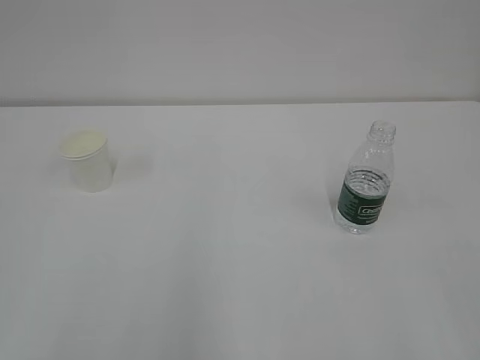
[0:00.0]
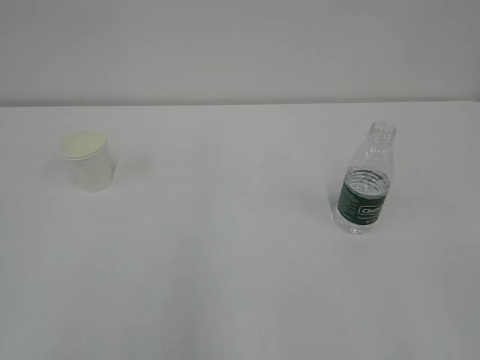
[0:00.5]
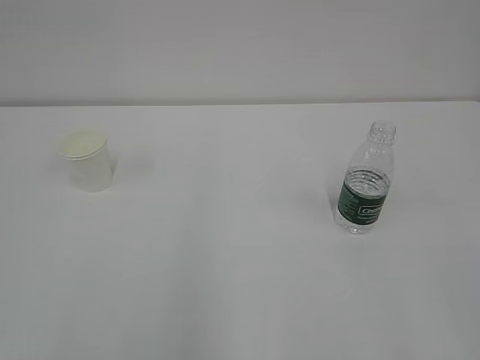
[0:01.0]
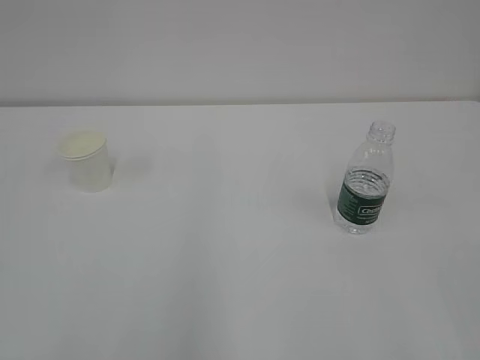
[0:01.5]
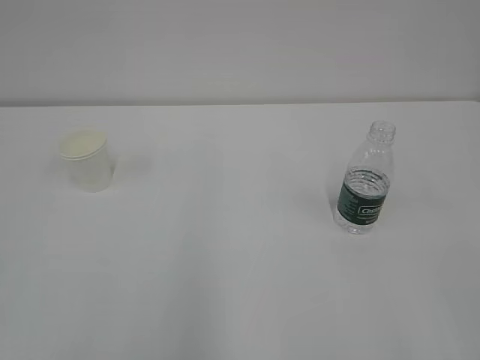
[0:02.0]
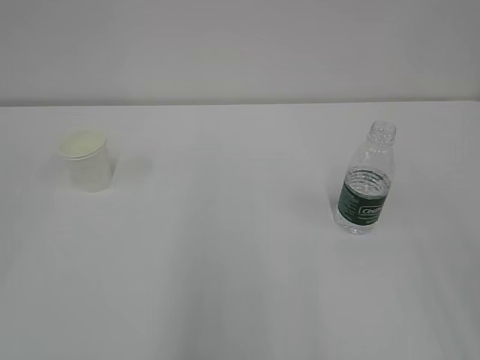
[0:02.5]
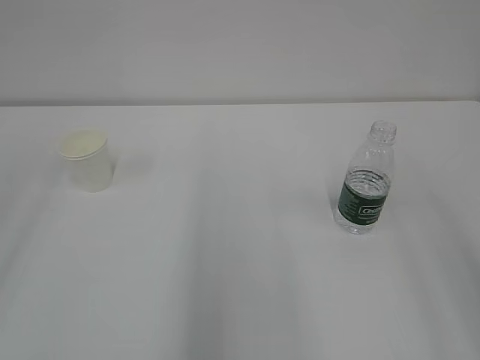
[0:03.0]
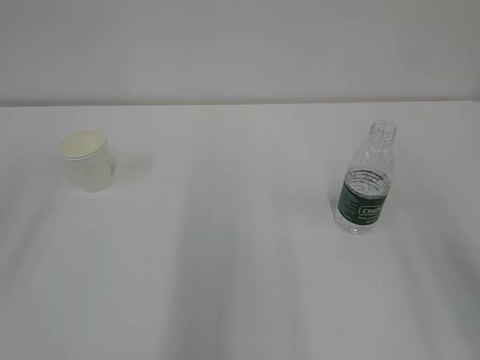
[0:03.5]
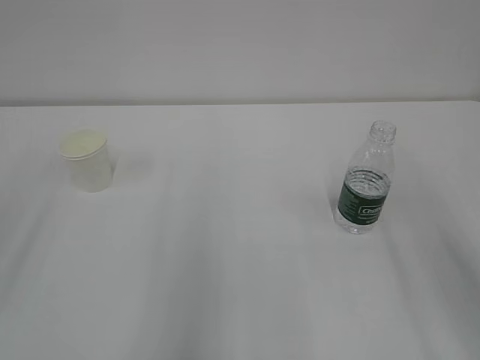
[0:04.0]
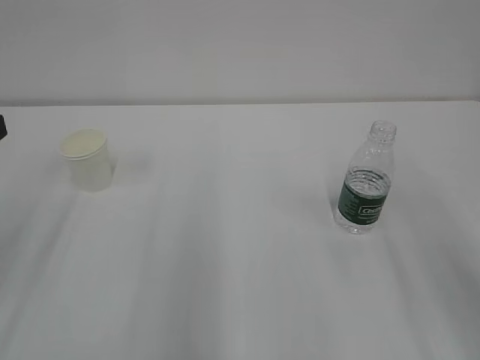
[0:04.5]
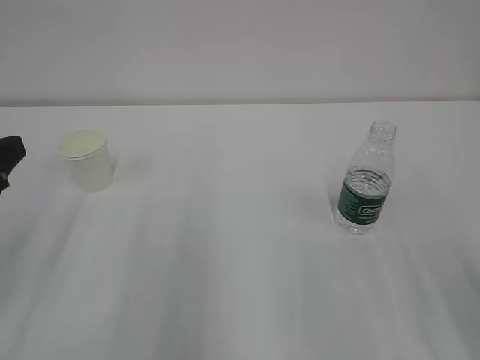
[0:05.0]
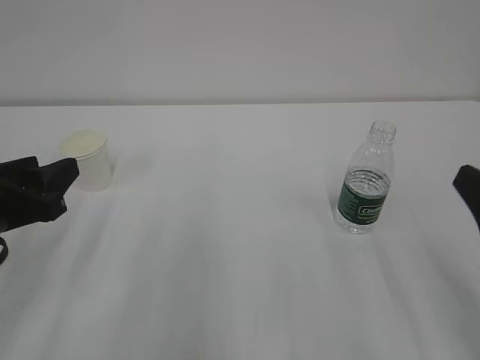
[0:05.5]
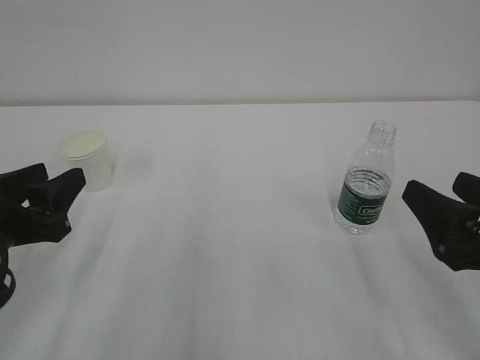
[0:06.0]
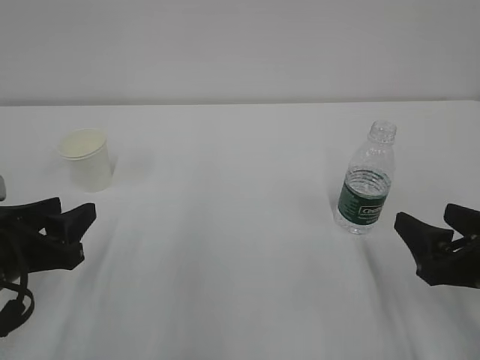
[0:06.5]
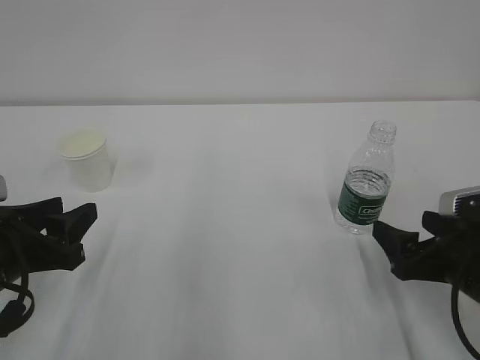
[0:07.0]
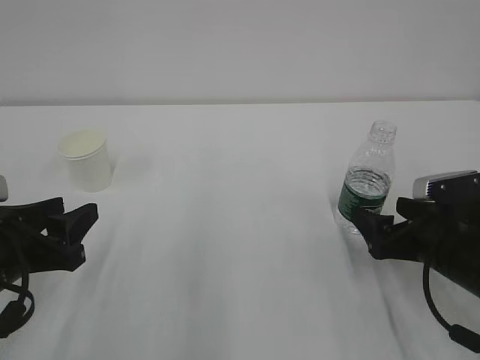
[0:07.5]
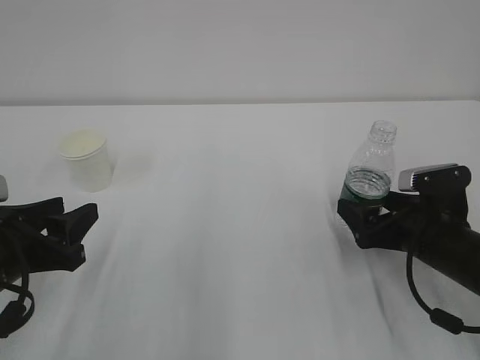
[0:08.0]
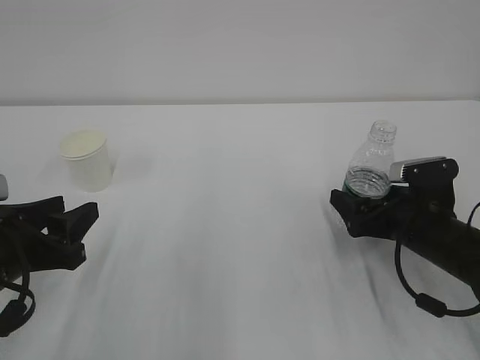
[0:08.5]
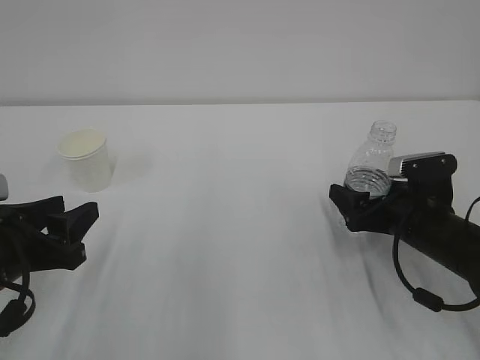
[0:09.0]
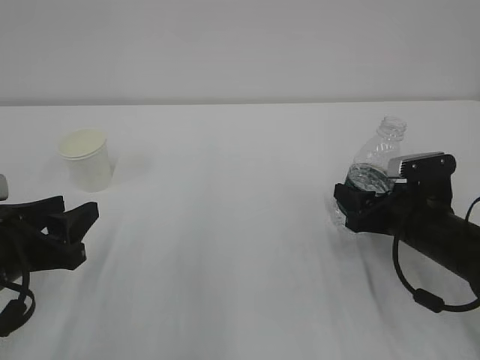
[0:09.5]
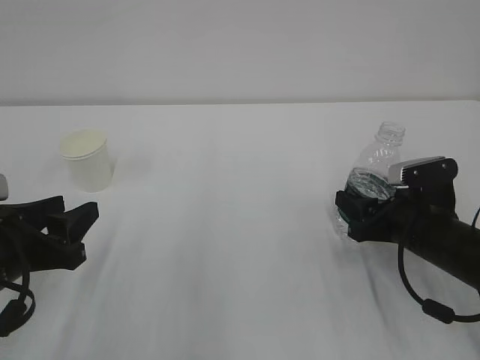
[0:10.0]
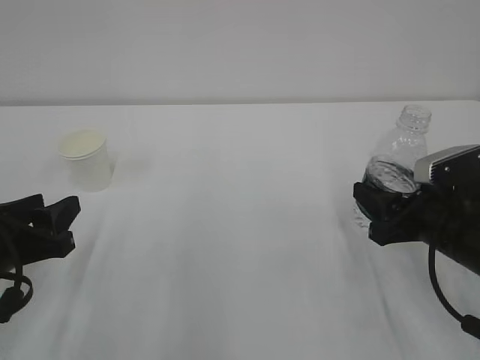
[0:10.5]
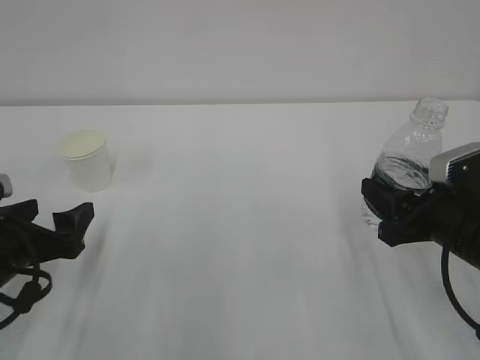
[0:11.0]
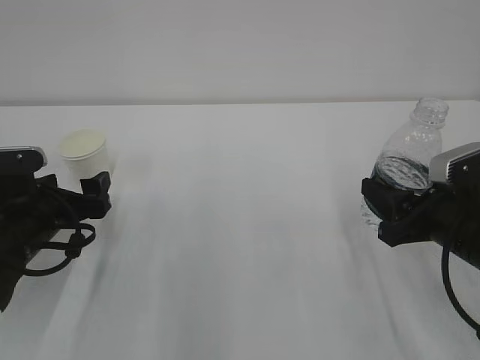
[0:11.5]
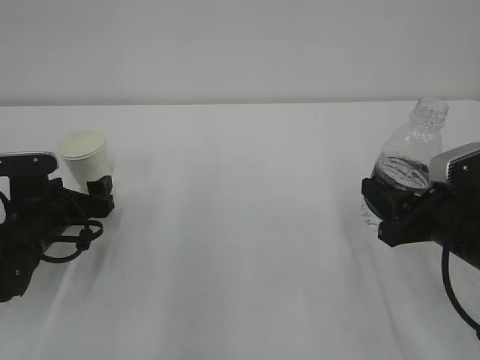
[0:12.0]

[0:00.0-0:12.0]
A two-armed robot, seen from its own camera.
4.0 to 6.0 s: The left gripper goes roughly 15 cm downward and to the right. Meanwhile the right gripper moves downward, about 15 cm.
6.0 to 8.0 s: The right gripper shifts some 15 cm forward and downward.
8.0 to 10.0 s: The right gripper closes its fingers.
10.0 to 12.0 s: The left gripper travels forward and downward by approximately 15 cm, and opens its fingers, while the right gripper heads upward and backward, covering about 10 cm.

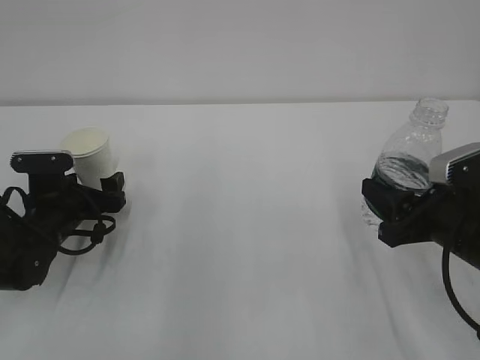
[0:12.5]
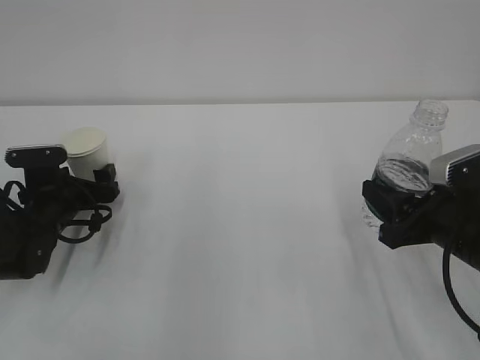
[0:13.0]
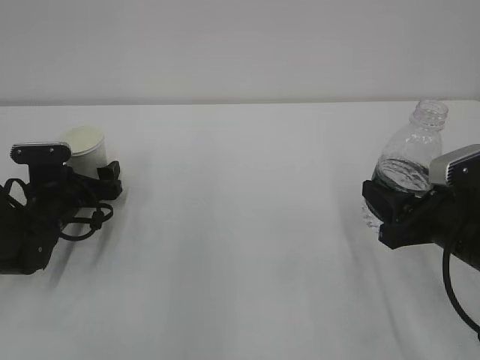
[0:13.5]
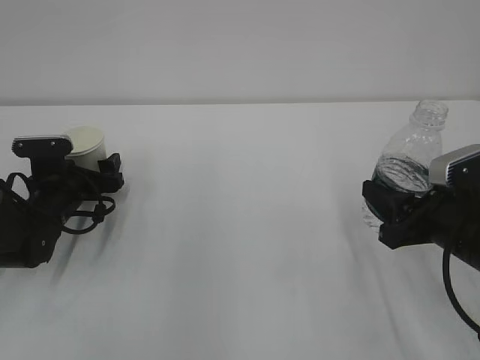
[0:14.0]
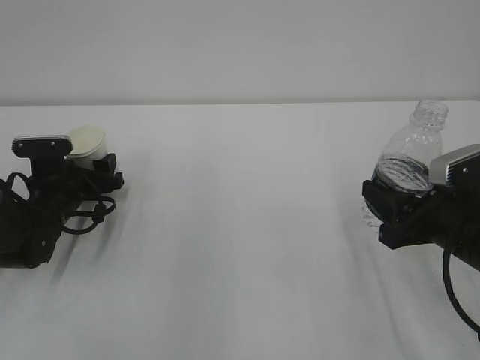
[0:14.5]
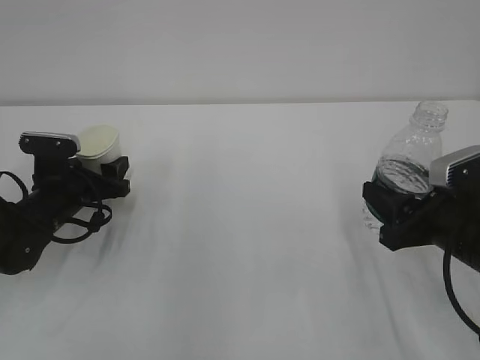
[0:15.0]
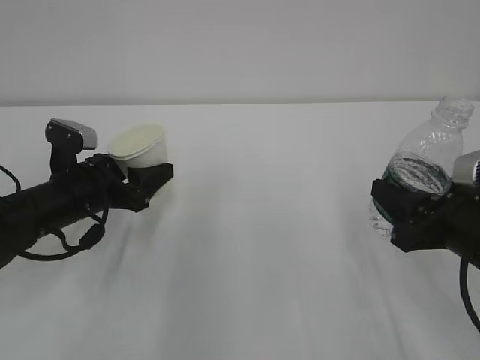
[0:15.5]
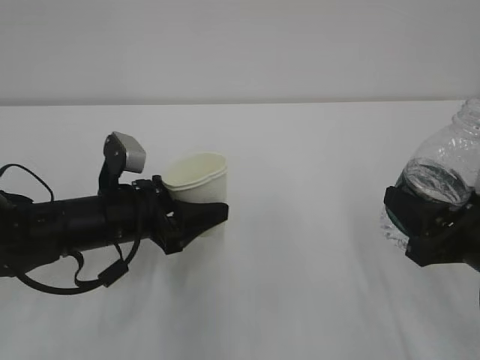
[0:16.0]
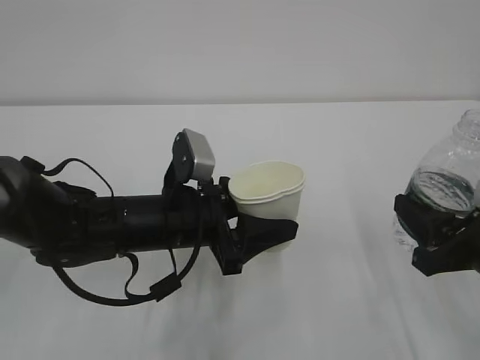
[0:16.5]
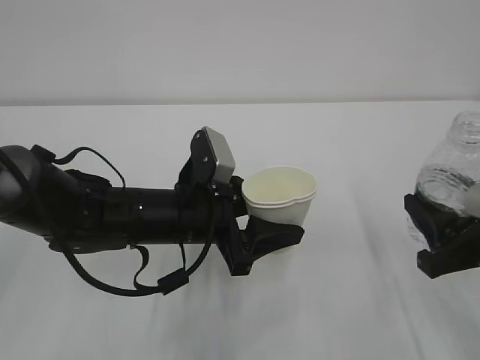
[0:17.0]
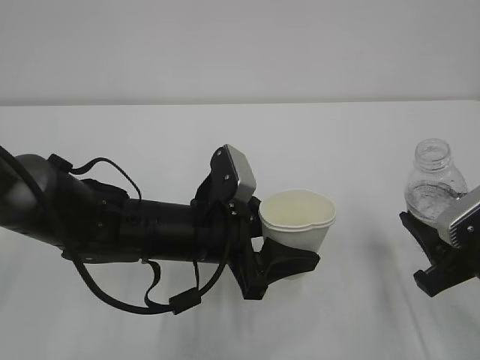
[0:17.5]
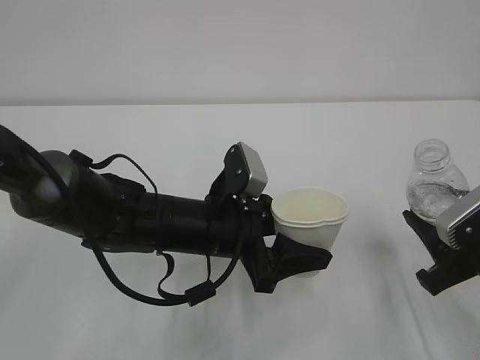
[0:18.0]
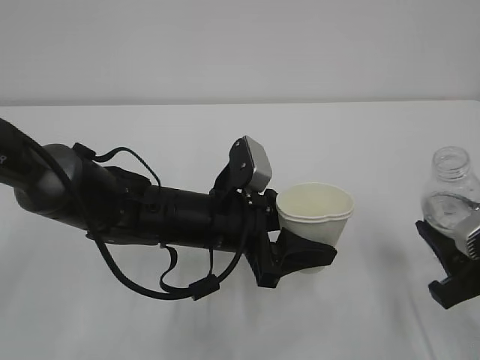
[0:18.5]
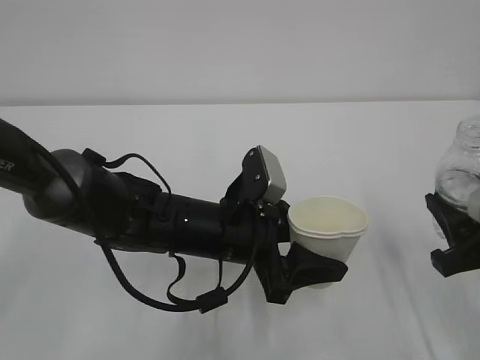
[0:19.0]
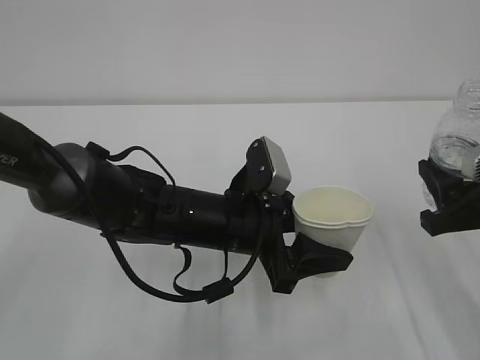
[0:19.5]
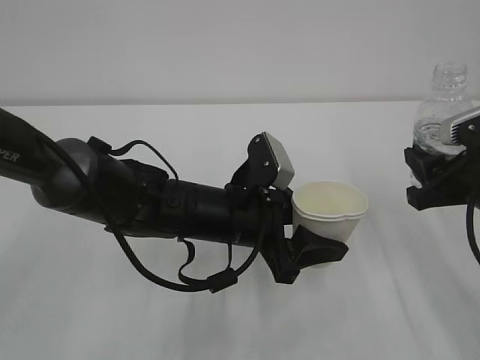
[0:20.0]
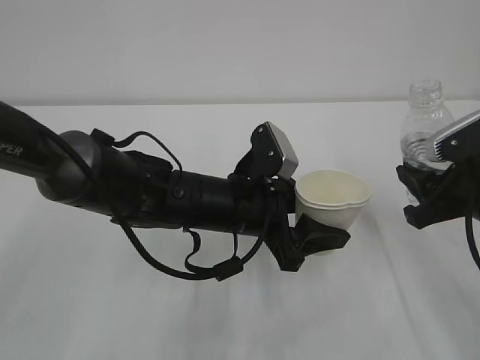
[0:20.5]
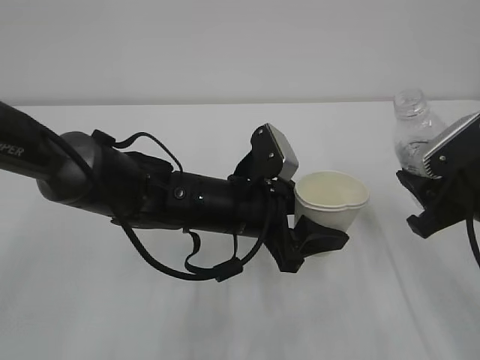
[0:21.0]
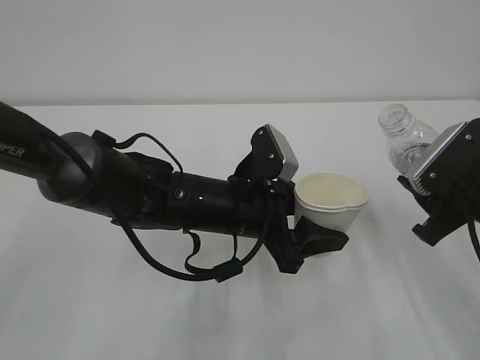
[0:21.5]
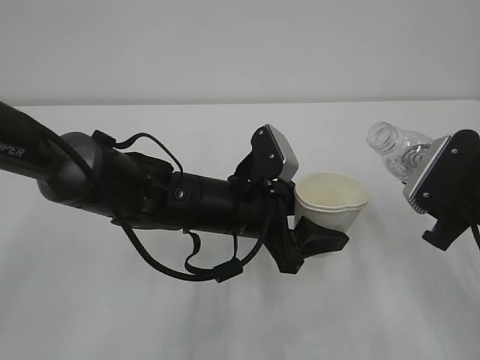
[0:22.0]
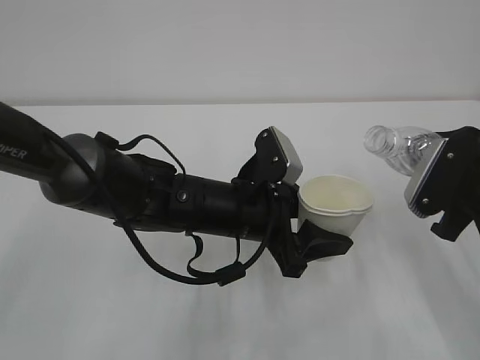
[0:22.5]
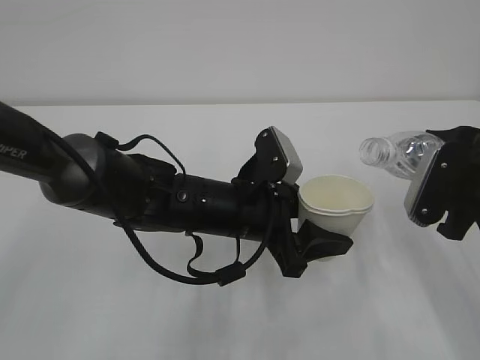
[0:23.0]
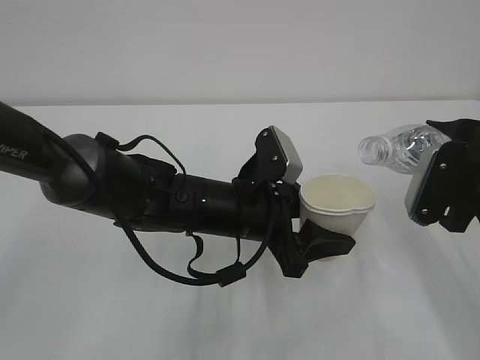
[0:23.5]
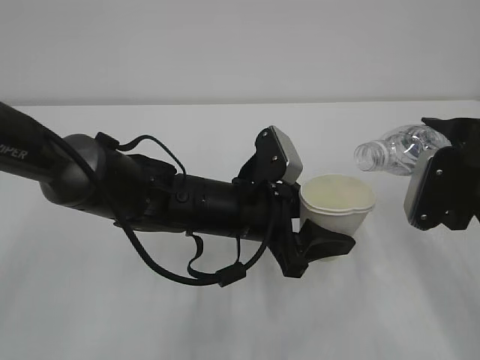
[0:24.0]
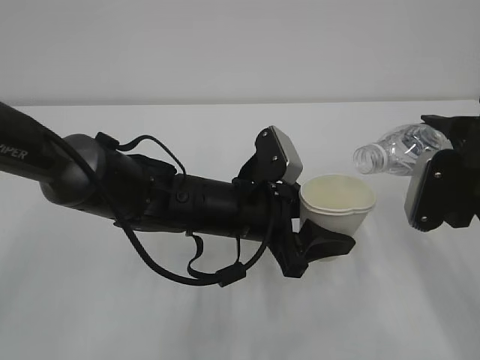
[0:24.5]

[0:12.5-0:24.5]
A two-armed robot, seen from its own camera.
12.5 to 14.5 s: The left gripper closes.
14.5 to 16.5 s: The left gripper goes about 20 cm to the right, backward and upward. Meanwhile the right gripper moves approximately 5 cm.
18.5 to 20.5 s: The right gripper shifts roughly 5 cm forward.

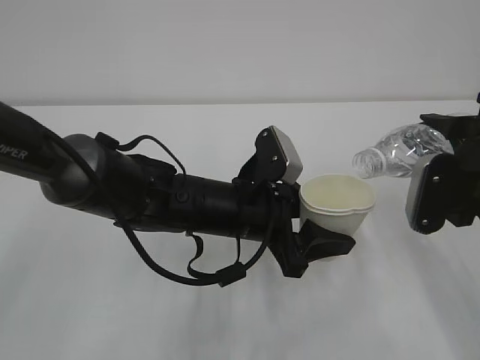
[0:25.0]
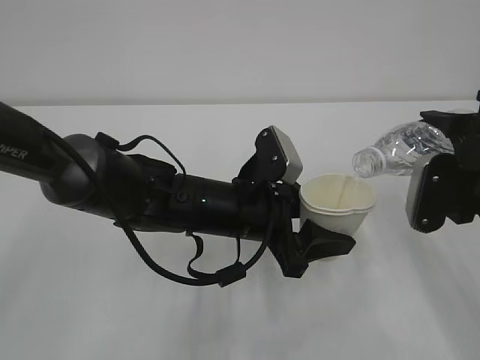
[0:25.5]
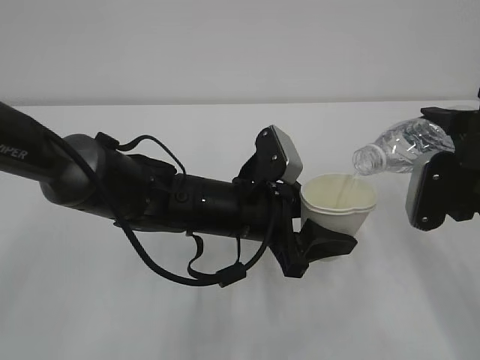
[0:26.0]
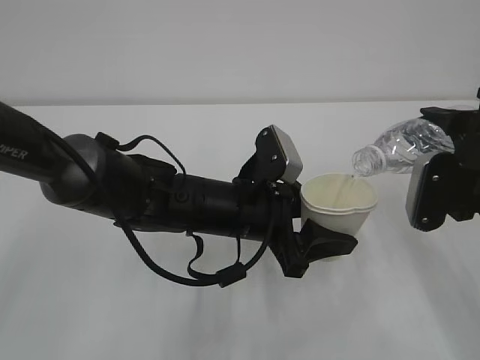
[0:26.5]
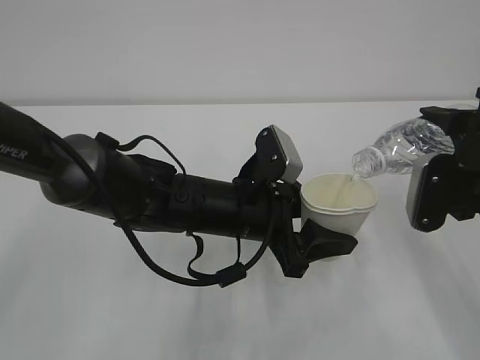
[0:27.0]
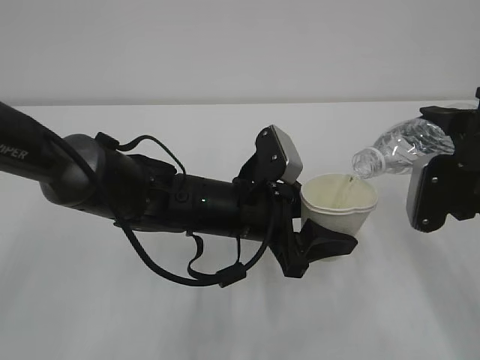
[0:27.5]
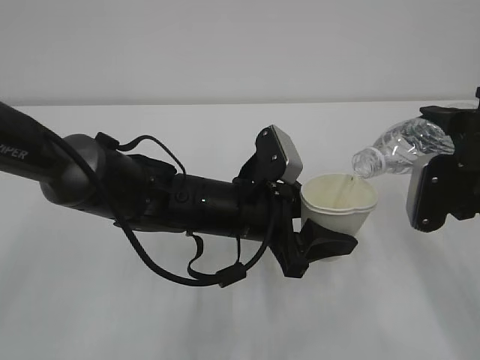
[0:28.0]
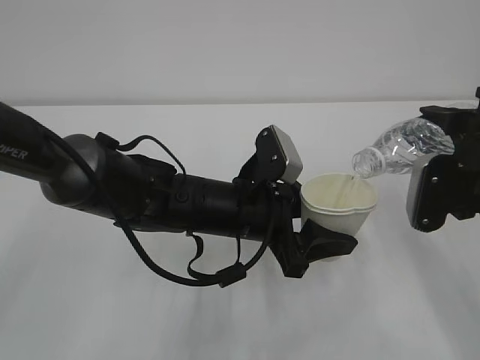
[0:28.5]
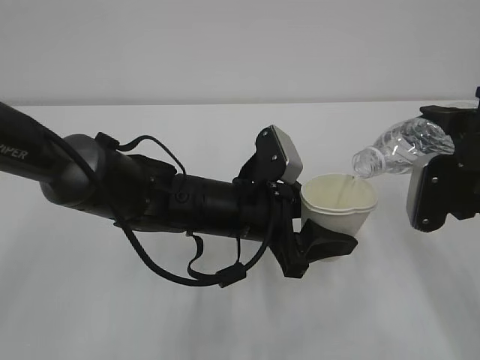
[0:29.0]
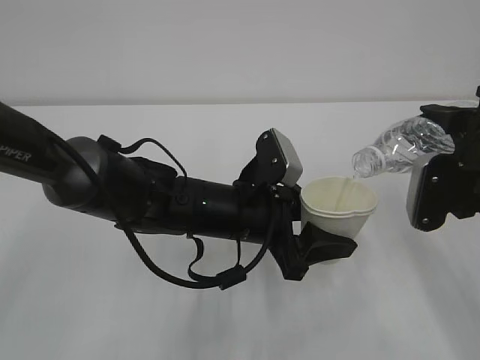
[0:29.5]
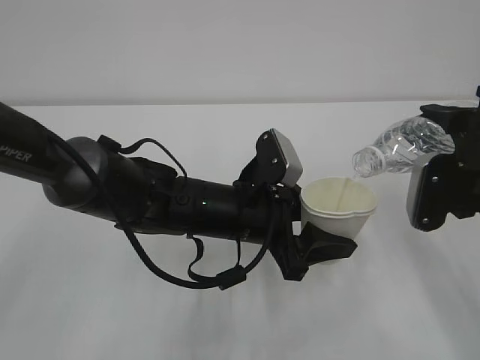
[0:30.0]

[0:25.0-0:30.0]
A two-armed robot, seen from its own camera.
25.0 to 30.0 s: Both grippers stay about where they are.
